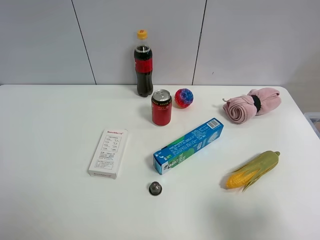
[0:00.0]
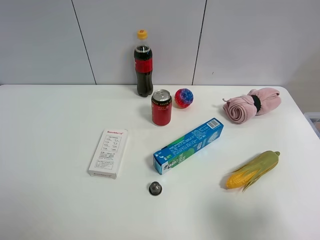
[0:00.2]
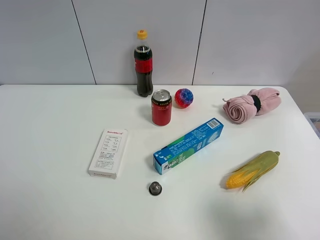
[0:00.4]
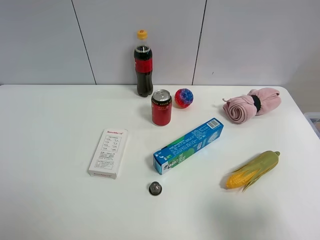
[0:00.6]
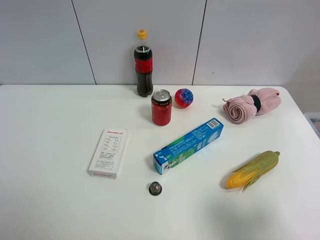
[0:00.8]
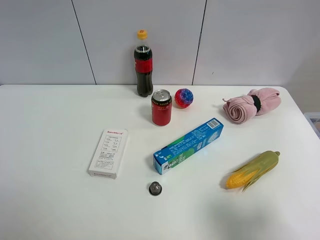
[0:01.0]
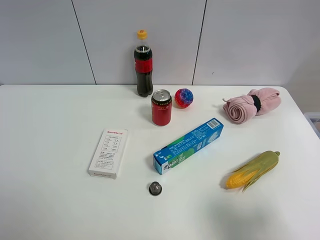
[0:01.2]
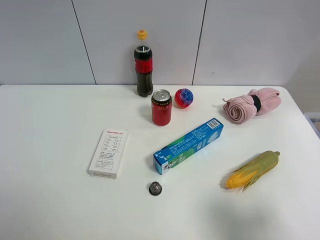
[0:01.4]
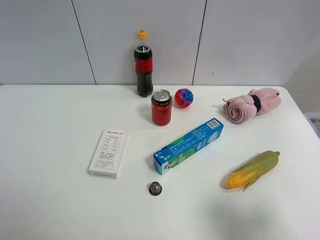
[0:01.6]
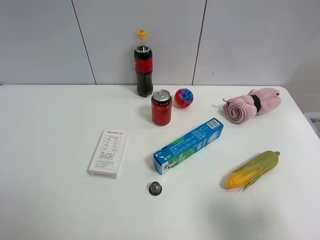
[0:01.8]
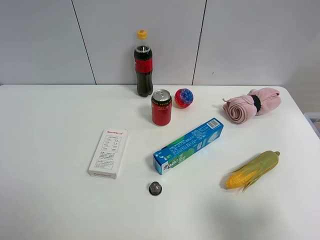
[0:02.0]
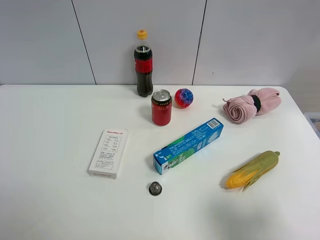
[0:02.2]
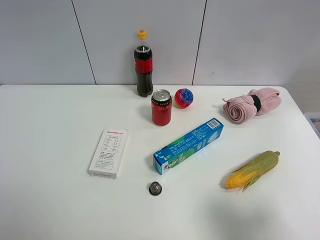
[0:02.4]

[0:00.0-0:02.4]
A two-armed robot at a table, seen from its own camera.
Task of the whole recording: the gripper move the object.
0:01.2 to 0:02.4: Neither gripper changes place.

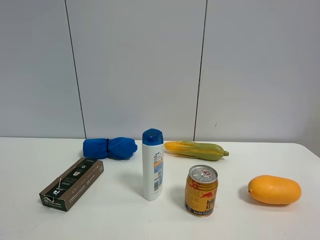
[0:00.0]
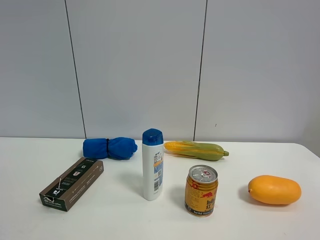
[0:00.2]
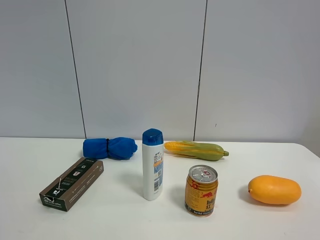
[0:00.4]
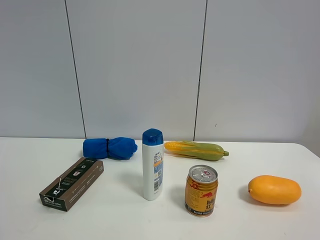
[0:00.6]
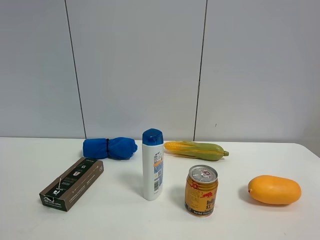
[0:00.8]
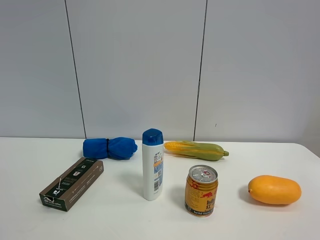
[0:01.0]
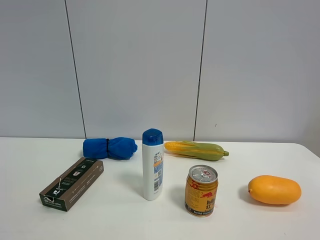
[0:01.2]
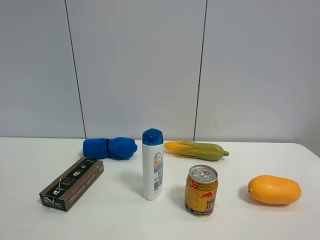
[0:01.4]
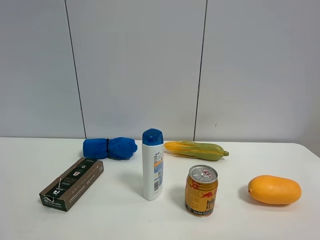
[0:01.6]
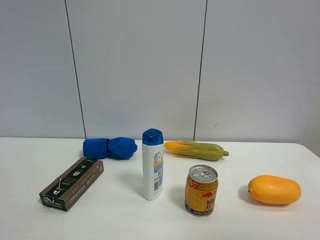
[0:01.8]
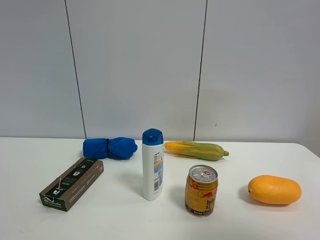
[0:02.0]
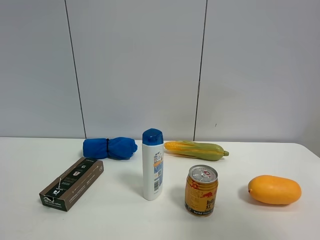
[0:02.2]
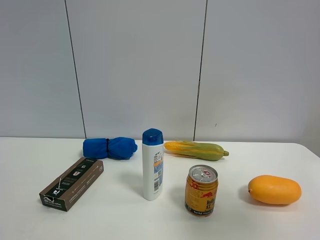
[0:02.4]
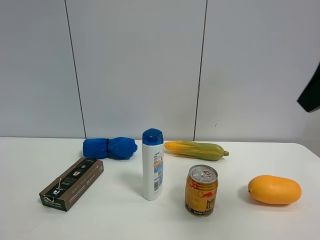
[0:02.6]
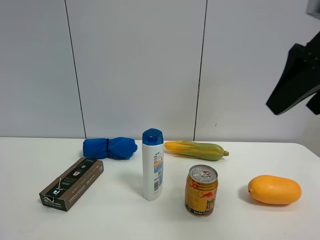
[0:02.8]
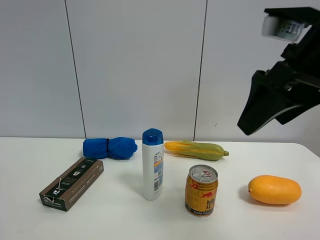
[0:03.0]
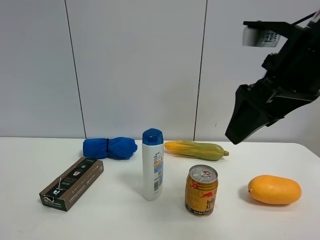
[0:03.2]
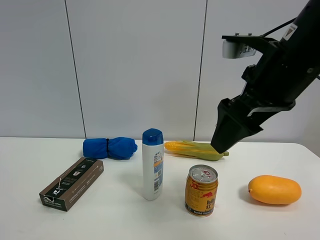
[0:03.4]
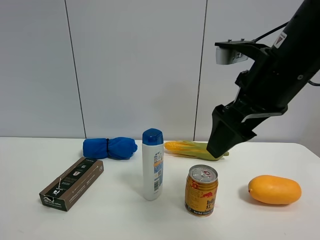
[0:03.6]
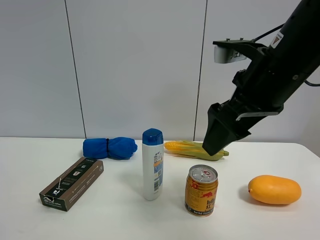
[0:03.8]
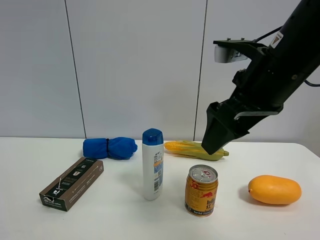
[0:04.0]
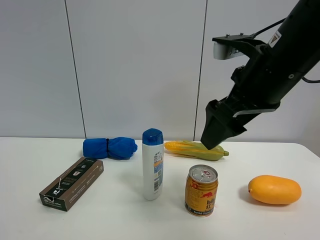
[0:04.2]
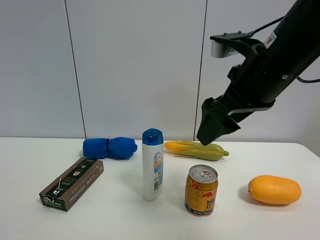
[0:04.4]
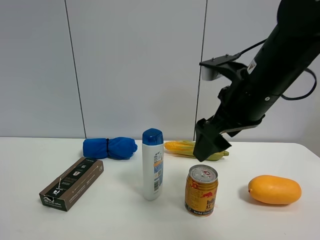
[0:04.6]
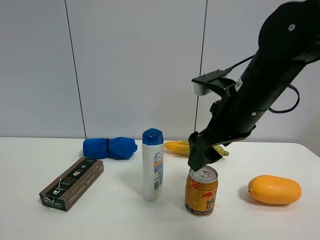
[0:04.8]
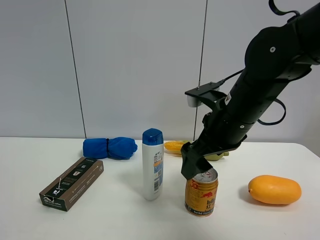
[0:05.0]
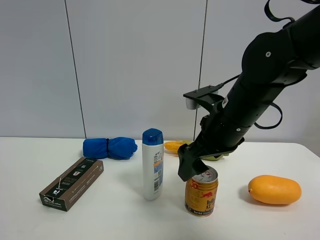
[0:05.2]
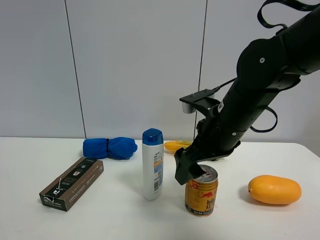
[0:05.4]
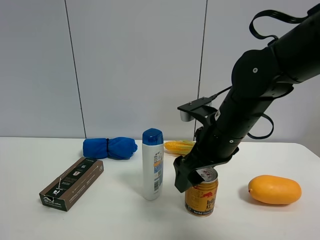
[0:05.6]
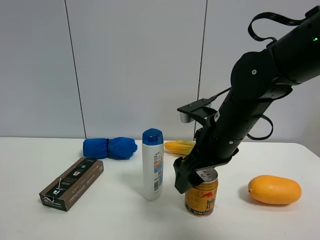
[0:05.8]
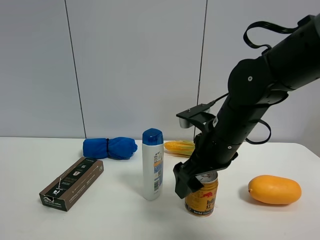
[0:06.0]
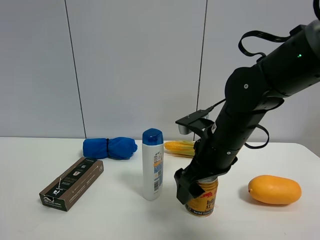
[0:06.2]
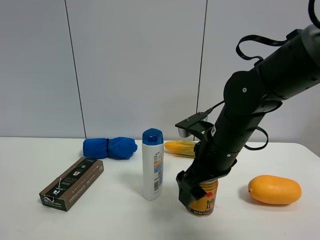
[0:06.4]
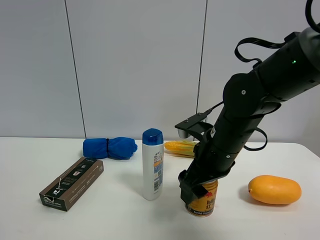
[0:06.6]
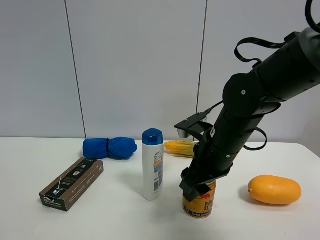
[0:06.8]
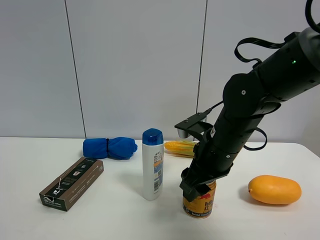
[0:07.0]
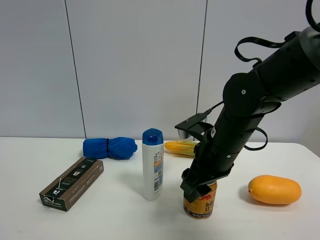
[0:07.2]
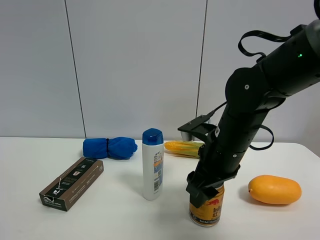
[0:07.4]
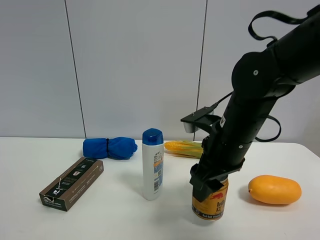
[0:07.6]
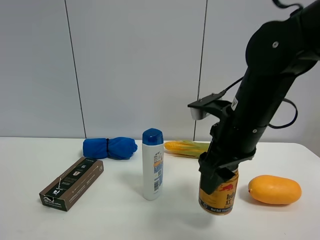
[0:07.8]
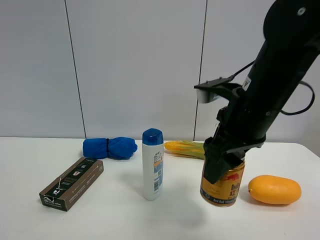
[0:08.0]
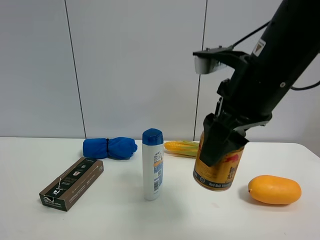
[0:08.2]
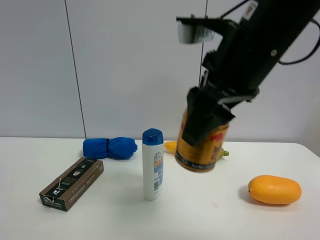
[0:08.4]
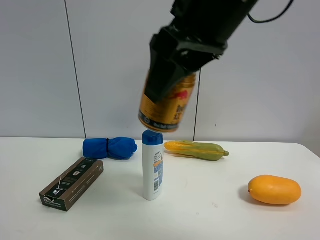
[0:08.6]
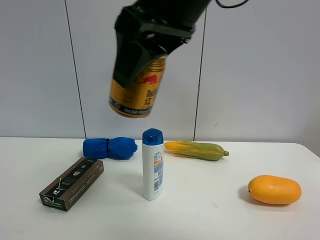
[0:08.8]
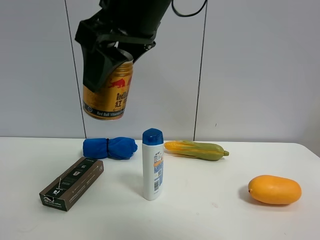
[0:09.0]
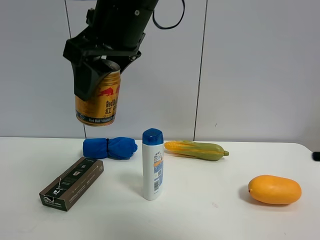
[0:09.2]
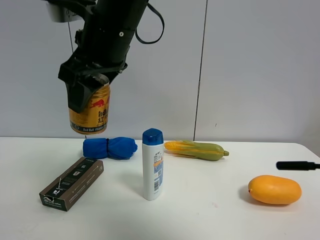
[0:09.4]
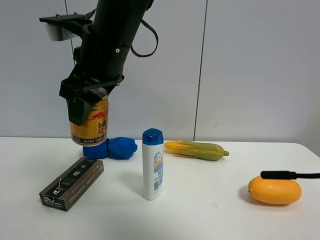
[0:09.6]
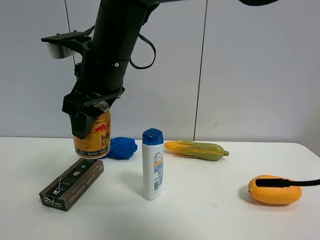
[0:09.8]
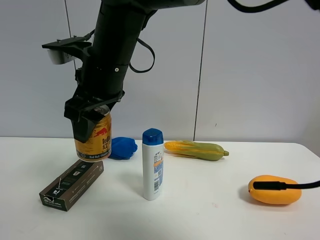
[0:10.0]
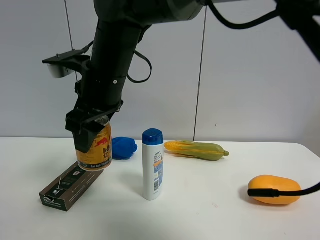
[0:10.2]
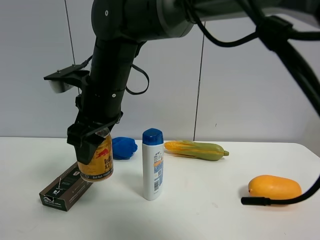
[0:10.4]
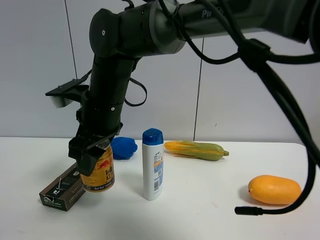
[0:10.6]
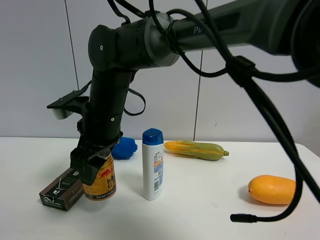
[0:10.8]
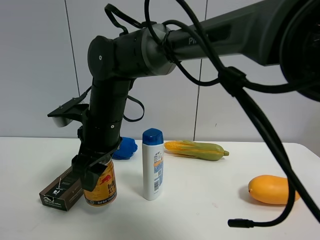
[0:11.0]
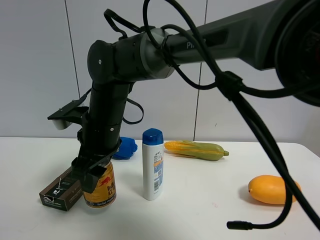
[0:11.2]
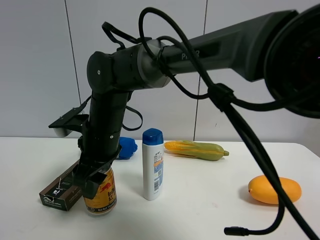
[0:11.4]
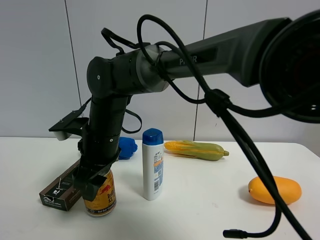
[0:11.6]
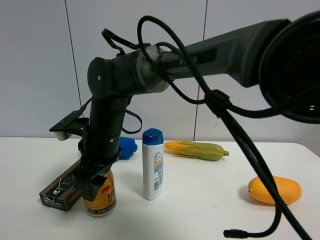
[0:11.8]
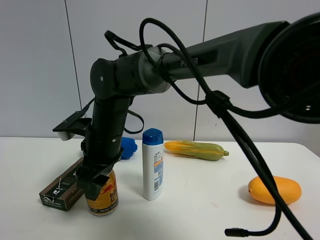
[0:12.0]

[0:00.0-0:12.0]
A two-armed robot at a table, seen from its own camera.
Task of the whole recording: the gripper move the object.
Step, 0:00.0 to 0:06.8: Grasp the red bull with the right gripper.
0:01.6 to 0:03.0: The right gripper goes roughly 25 cm forward and to the left.
0:03.0 to 0:04.4: The right gripper changes place by some 5 cm.
0:04.4 to 0:06.0: The right gripper shifts some 10 cm downward.
0:06.0 to 0:07.6: The right gripper closes.
0:07.6 to 0:09.0: The right gripper goes some 25 cm upward and to the left.
0:09.0 to 0:10.4: The right gripper is displaced downward, to the left and forward by some 15 cm.
0:10.4 to 0:12.0: The right gripper moves downward, about 10 cm.

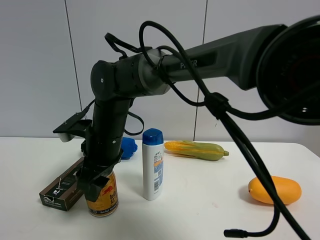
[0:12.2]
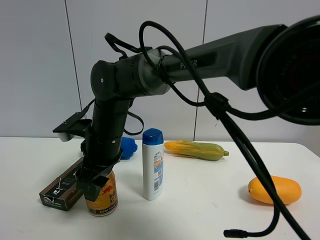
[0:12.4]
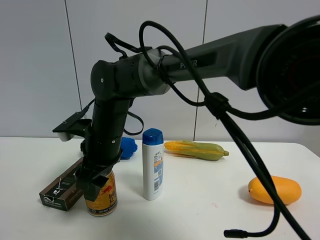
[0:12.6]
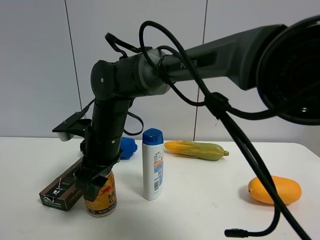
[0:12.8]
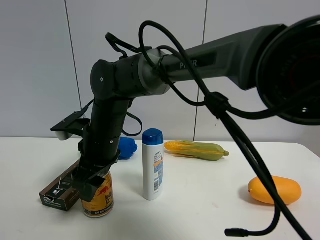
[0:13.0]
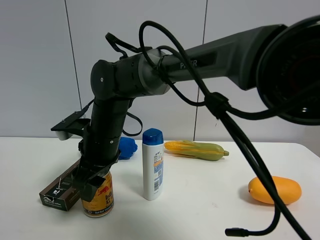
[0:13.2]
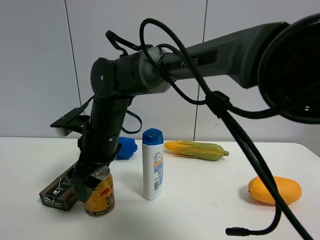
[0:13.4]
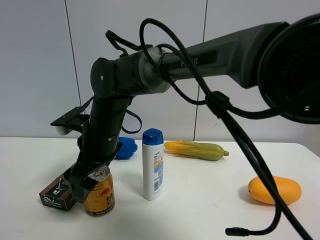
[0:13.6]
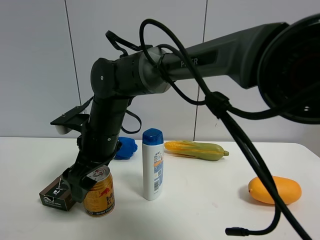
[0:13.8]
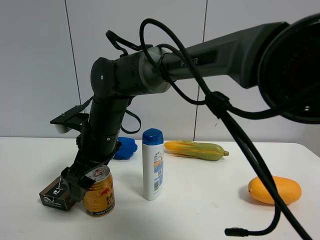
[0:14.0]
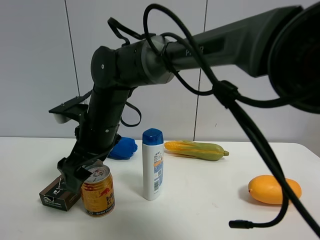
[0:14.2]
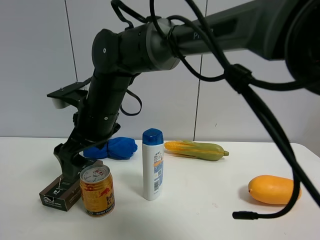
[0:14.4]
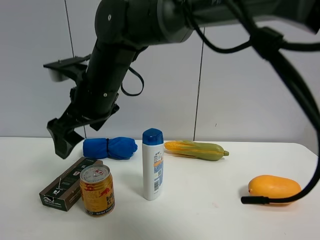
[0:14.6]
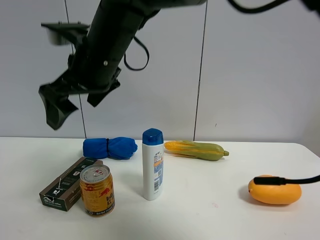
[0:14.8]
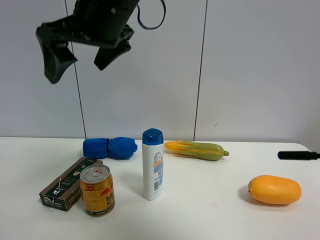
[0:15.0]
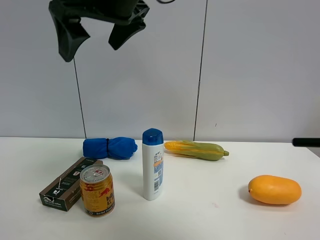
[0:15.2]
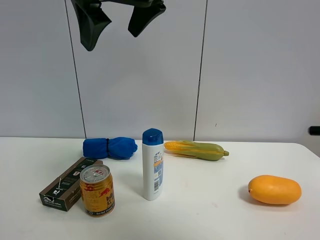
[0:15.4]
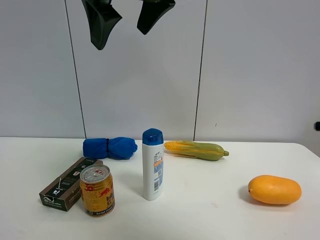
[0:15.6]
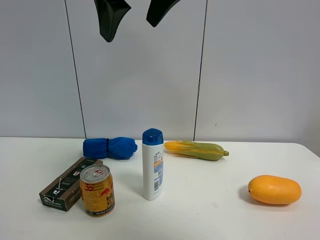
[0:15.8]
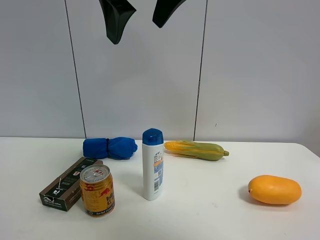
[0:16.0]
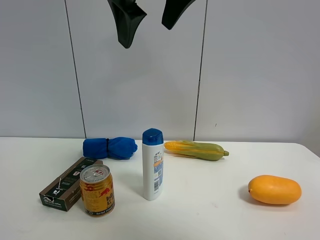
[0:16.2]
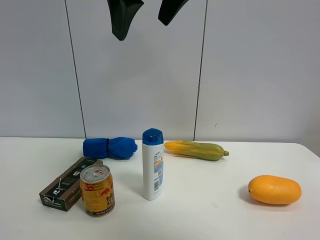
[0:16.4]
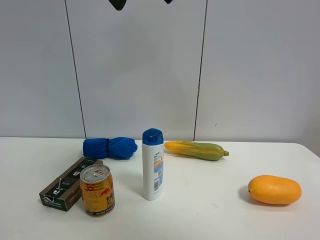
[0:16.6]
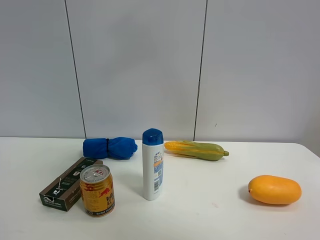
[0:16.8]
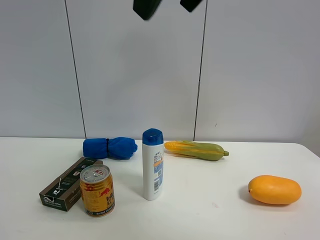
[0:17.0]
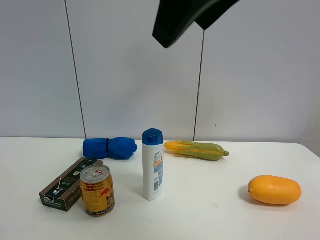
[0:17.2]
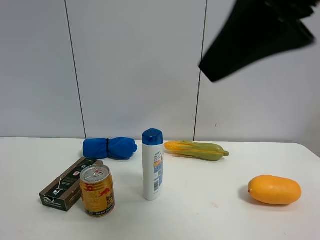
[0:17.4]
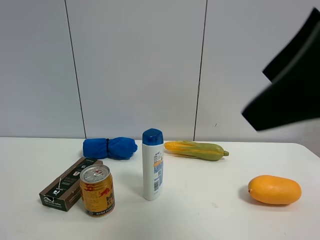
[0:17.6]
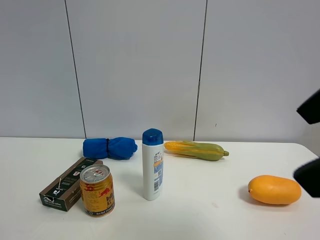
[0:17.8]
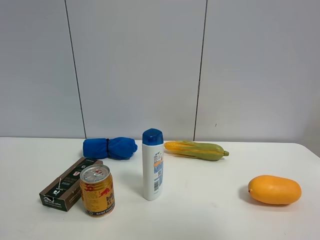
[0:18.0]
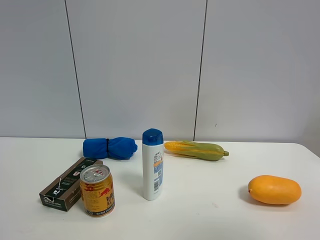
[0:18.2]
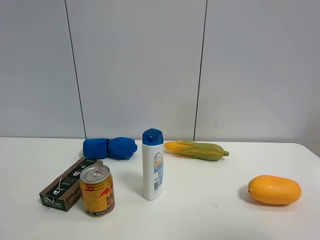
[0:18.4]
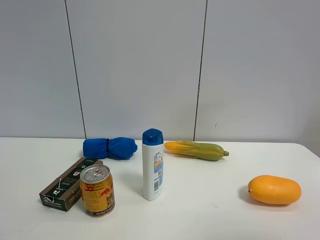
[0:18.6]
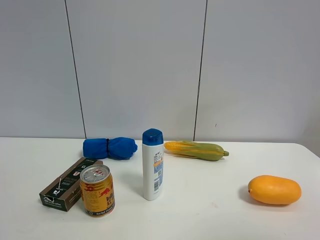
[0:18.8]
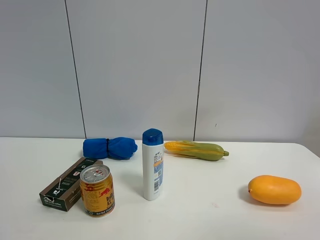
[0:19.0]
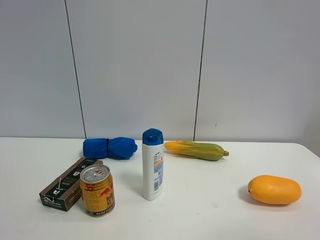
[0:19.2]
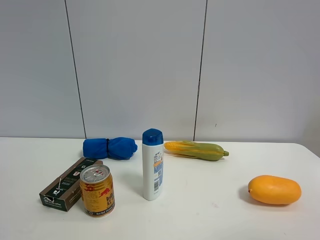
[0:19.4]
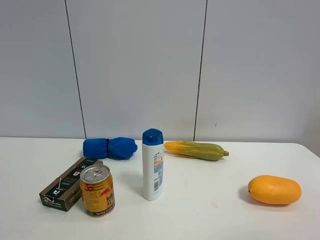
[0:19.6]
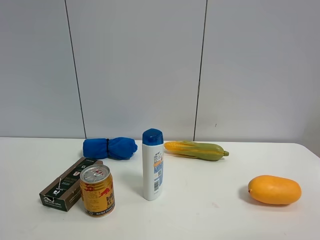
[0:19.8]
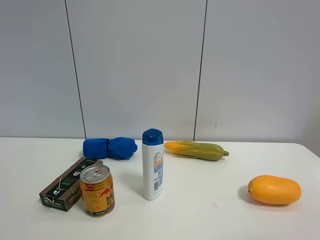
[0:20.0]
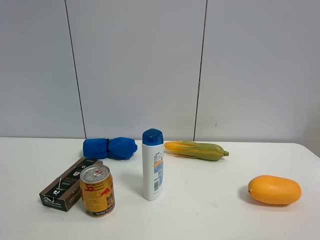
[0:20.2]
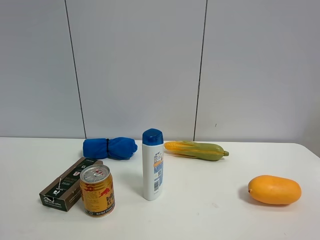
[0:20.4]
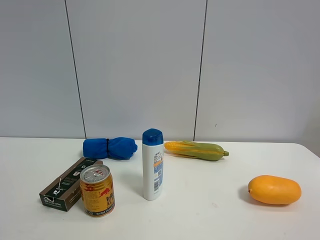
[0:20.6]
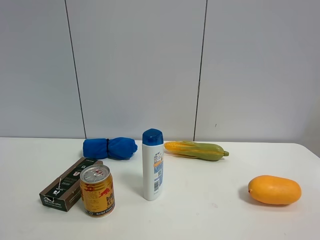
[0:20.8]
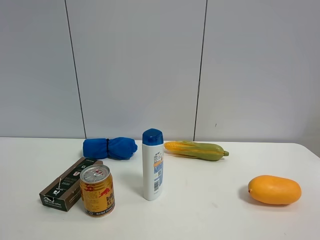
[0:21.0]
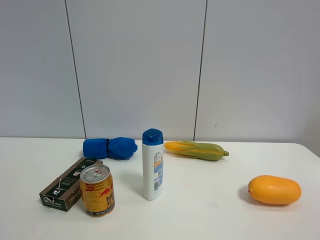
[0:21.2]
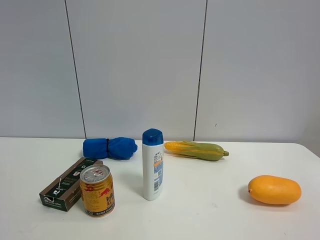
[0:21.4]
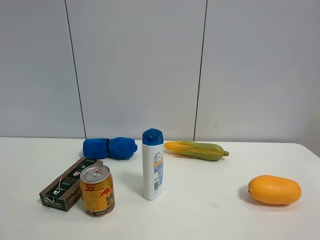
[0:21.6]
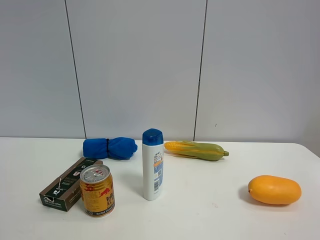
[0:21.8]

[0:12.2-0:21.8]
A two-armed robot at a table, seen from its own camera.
Task of the whole recording: the gripper move the object.
0:12.2 to 0:13.8: The right gripper opens up.
0:13.8 to 0:15.4: The right gripper shifts about 25 cm upward.
0:15.4 to 0:17.0: The right gripper shifts some 10 cm to the right and backward.
0:17.0 to 0:18.6: The right gripper moves to the right, backward and downward, about 30 cm.
